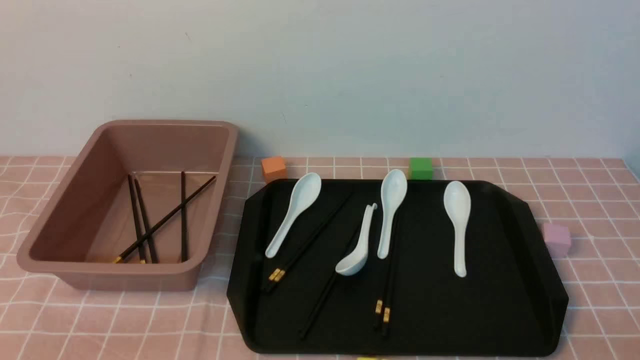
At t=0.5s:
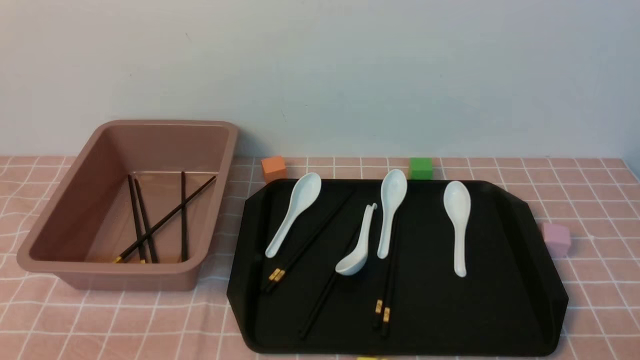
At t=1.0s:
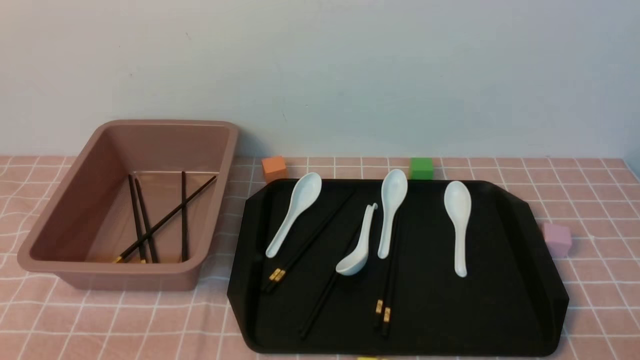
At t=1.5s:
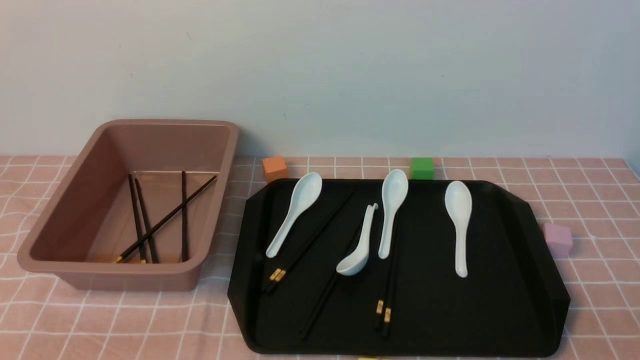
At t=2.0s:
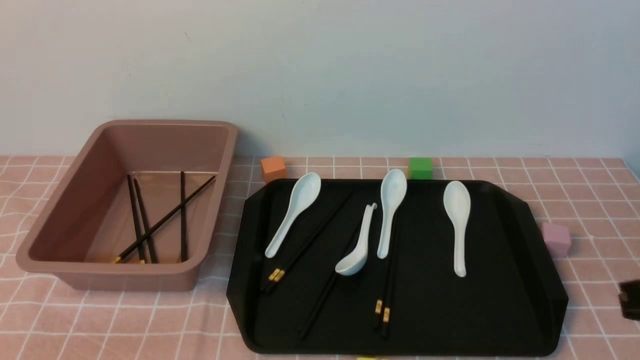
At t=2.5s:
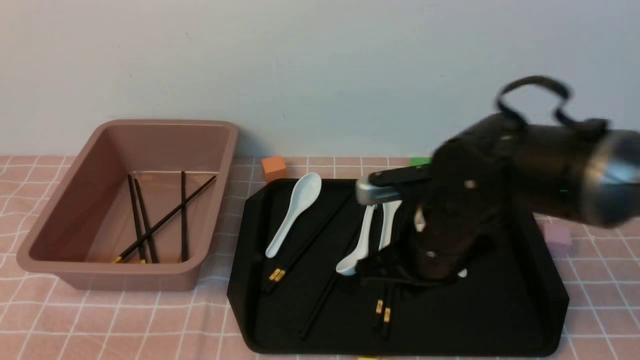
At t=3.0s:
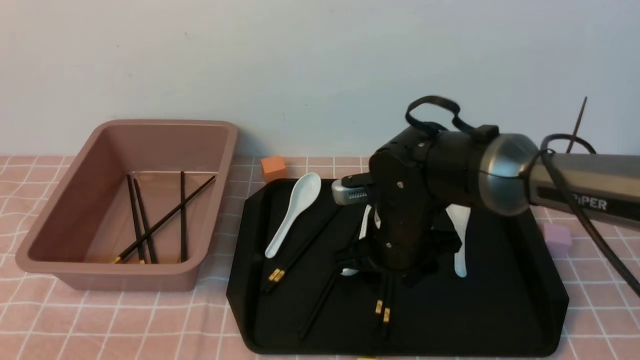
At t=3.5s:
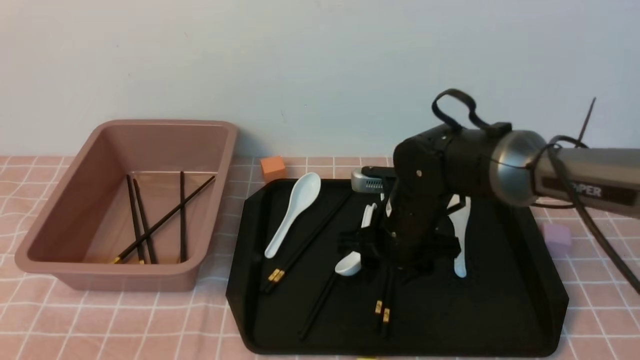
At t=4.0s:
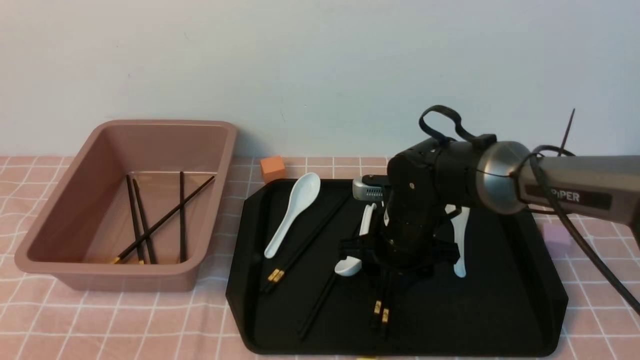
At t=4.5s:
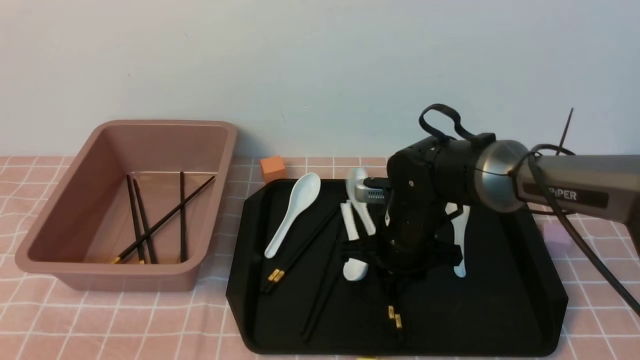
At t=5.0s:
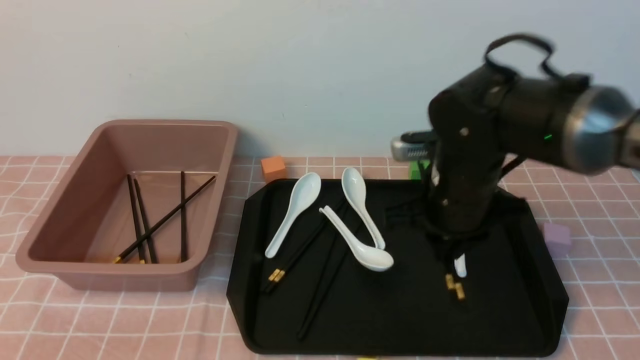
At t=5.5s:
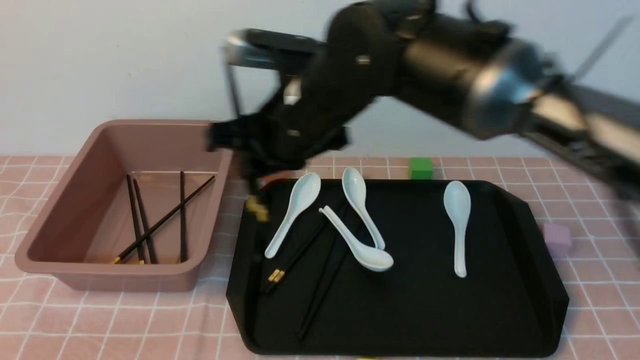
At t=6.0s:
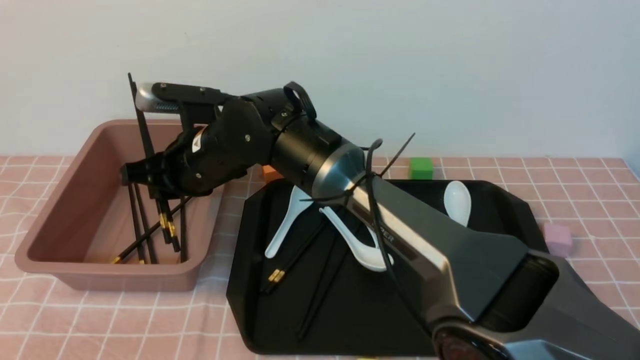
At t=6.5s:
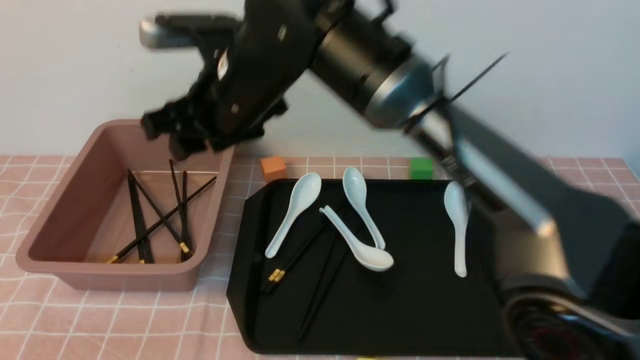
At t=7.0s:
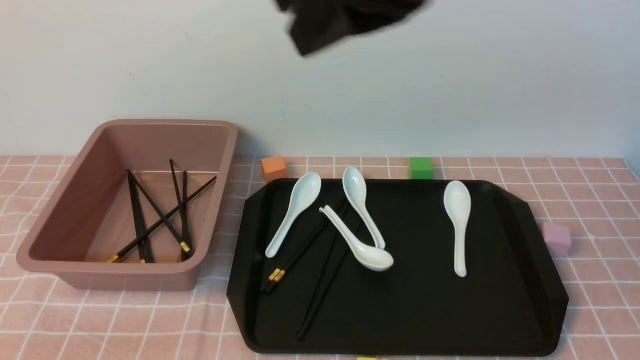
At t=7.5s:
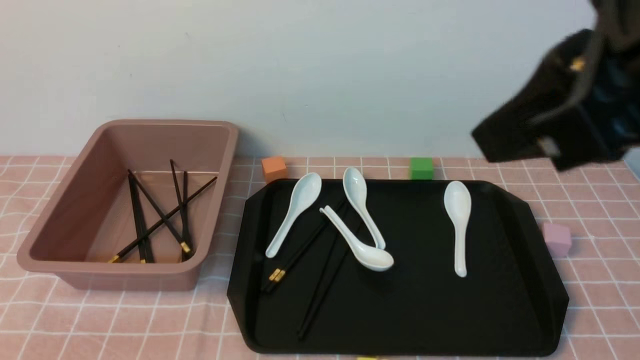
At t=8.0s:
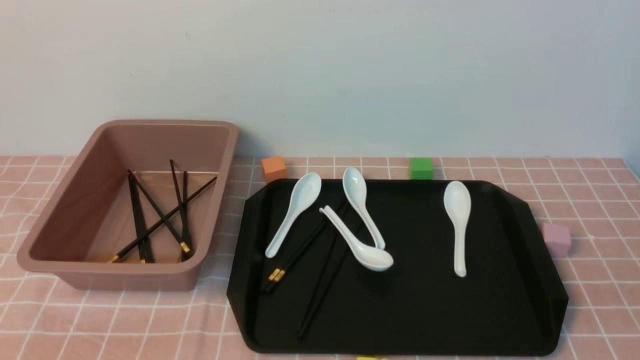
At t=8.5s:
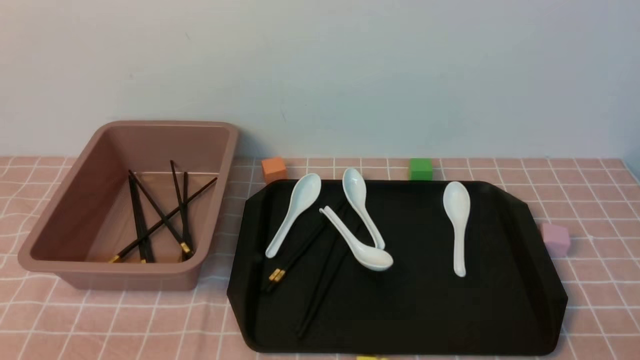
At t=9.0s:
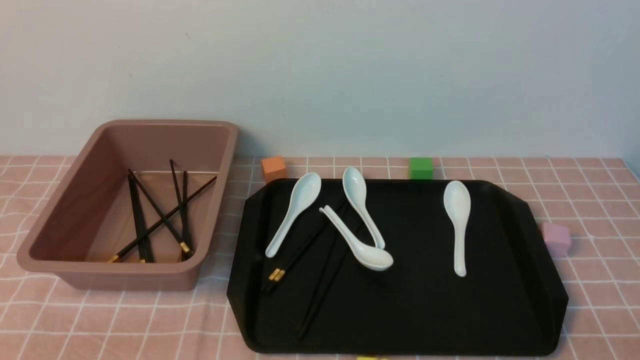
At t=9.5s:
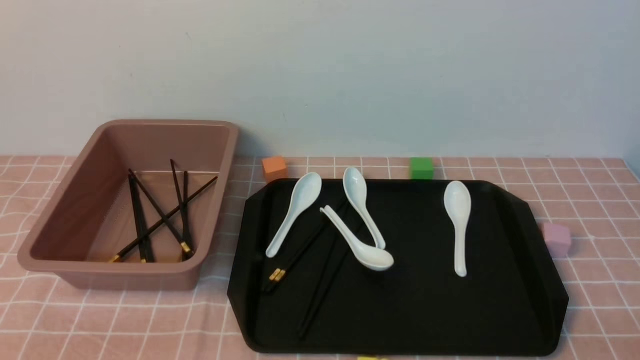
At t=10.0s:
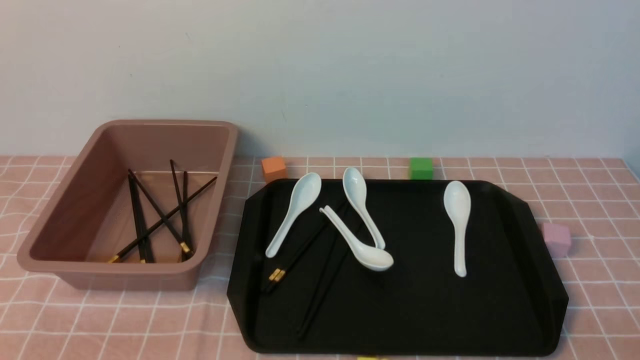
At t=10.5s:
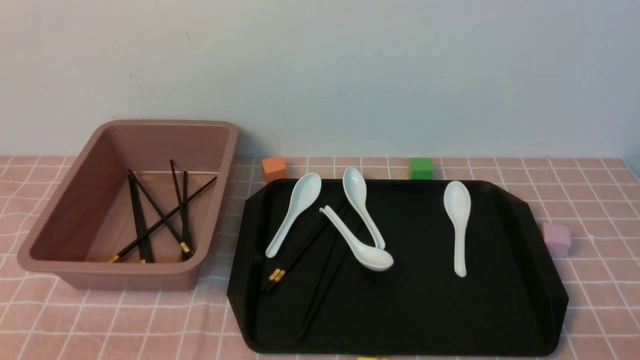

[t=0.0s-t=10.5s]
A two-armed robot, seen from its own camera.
Step, t=0.0s to t=5.0s: use the right arm to grab a pair of chopsticks.
Step, t=5.5s to t=6.5s: use the right arm to put the chopsticks into the lunch box.
t=2.0s to t=4.0s: The right gripper moves forward, to the left and downward, some 30 cm, and opens up.
t=4.0s to t=6.5s: The right gripper shifts some 25 cm upward and to the left, and closes and opens again.
t=6.5s to t=8.5s: The right gripper moves to the right, backward and downward, roughly 50 cm, and closes up.
t=8.5s to t=10.5s: Both grippers stay put.

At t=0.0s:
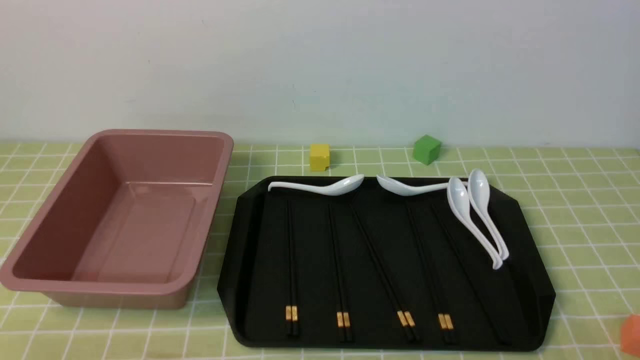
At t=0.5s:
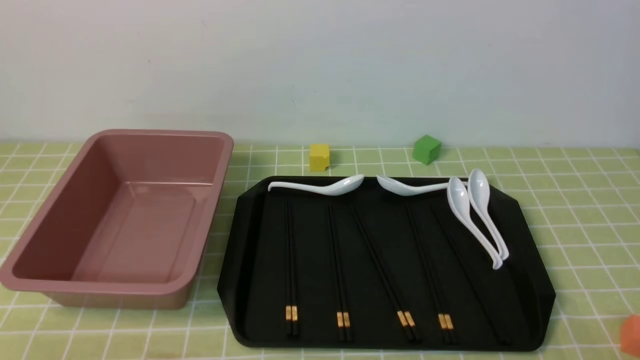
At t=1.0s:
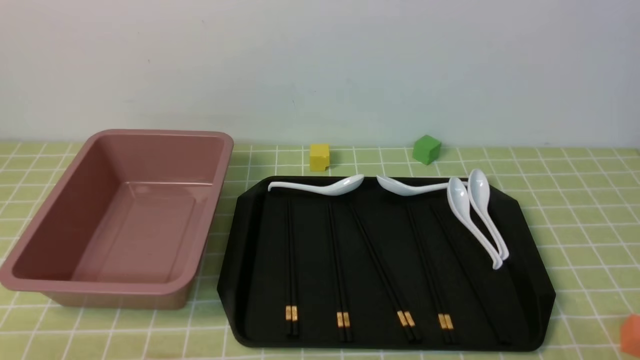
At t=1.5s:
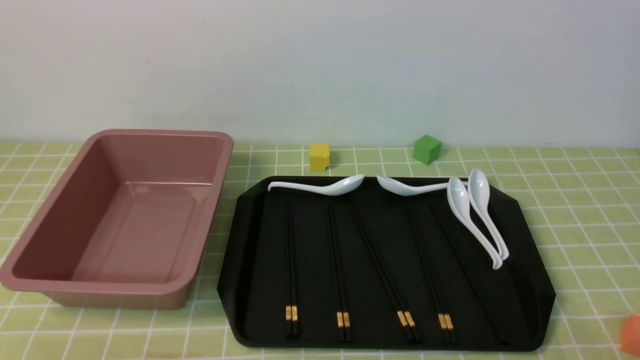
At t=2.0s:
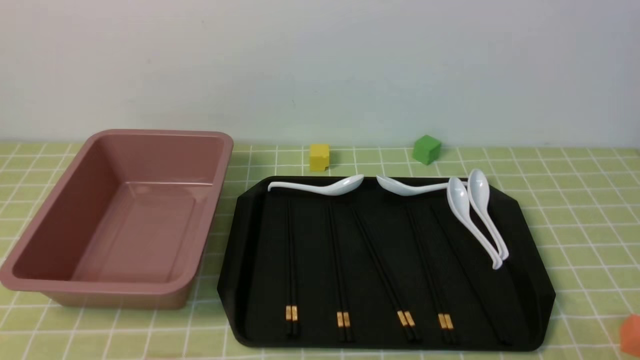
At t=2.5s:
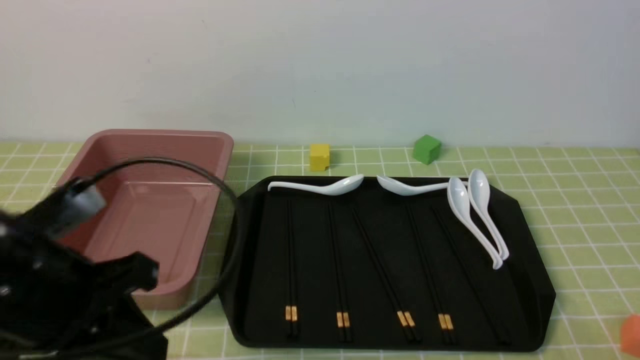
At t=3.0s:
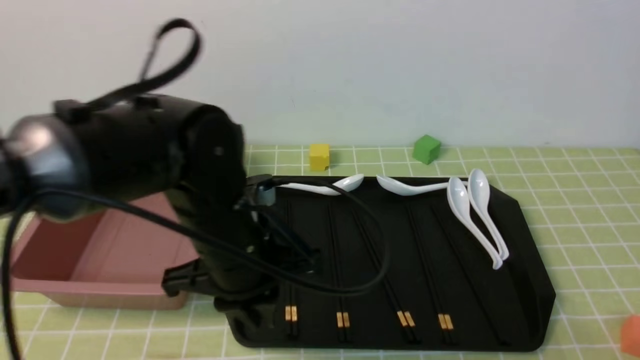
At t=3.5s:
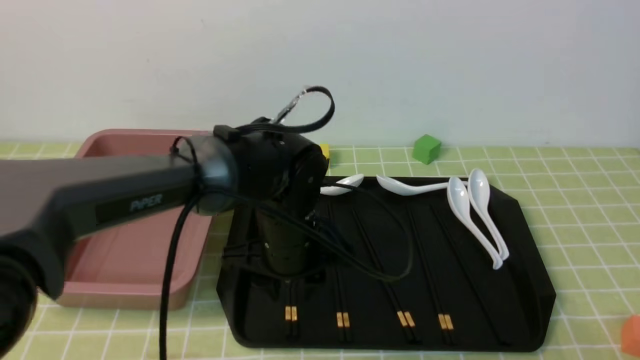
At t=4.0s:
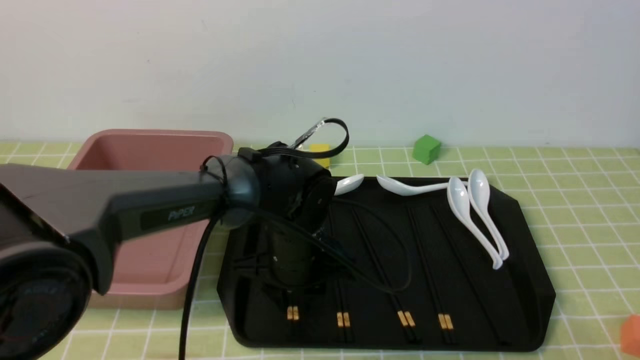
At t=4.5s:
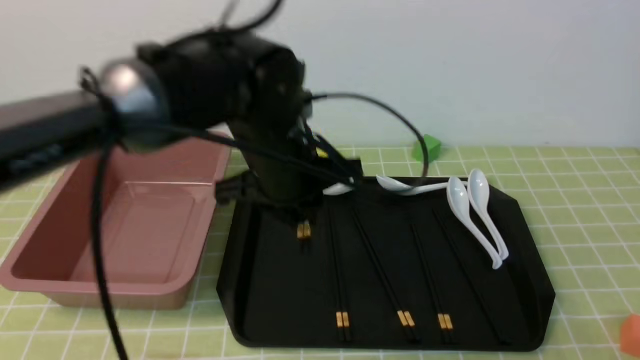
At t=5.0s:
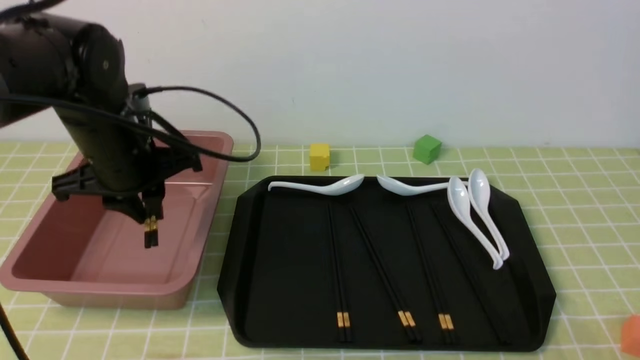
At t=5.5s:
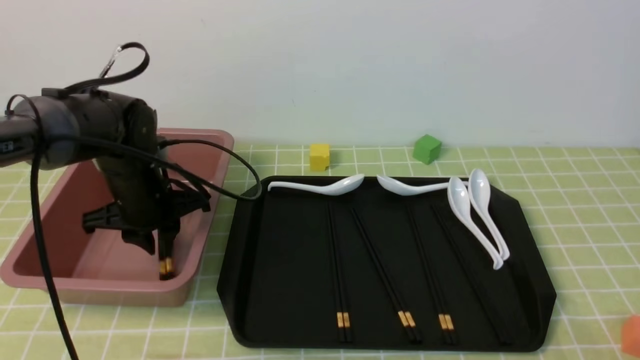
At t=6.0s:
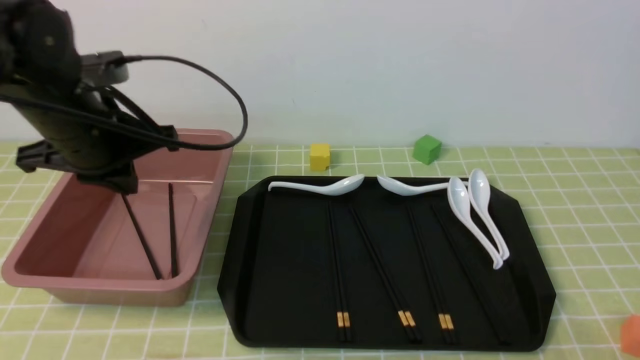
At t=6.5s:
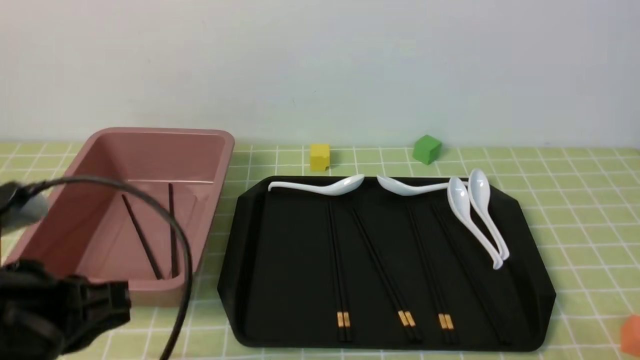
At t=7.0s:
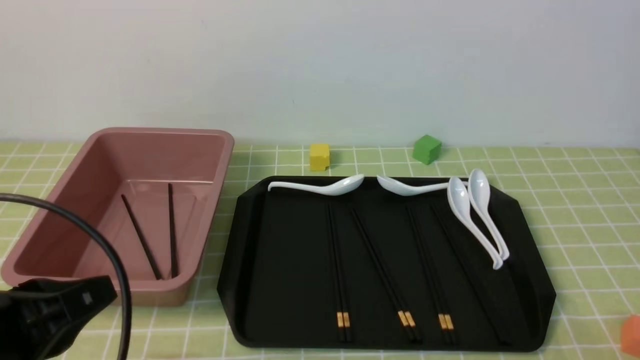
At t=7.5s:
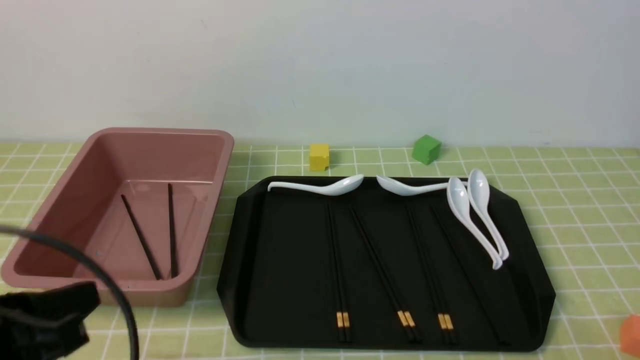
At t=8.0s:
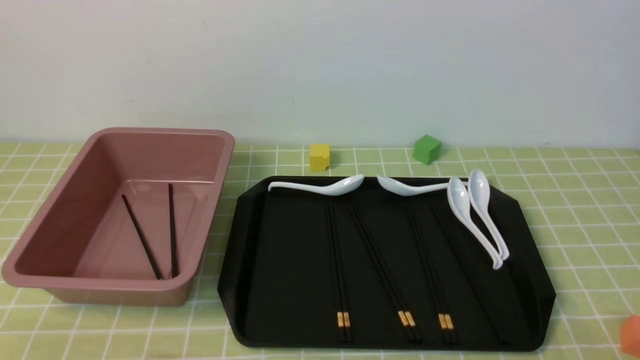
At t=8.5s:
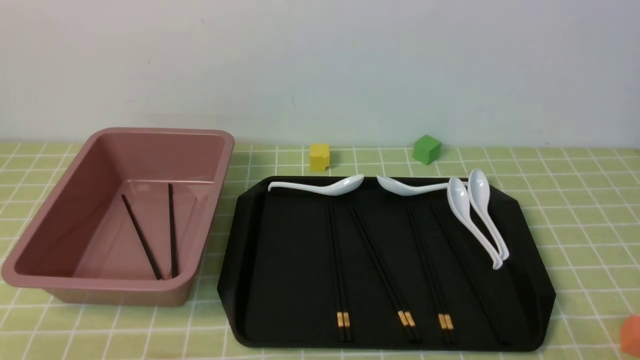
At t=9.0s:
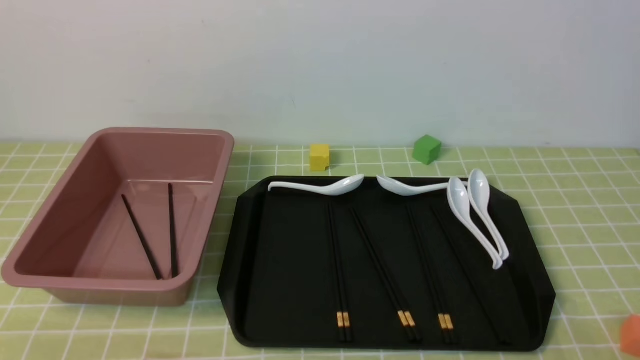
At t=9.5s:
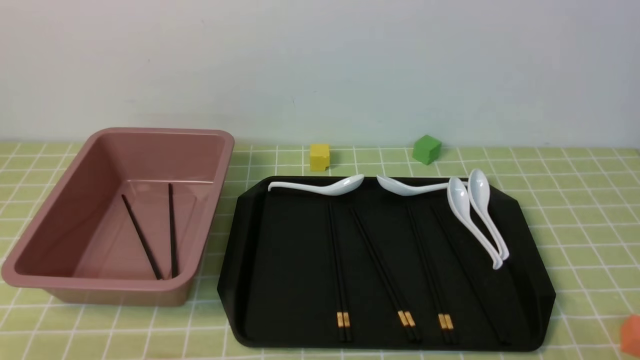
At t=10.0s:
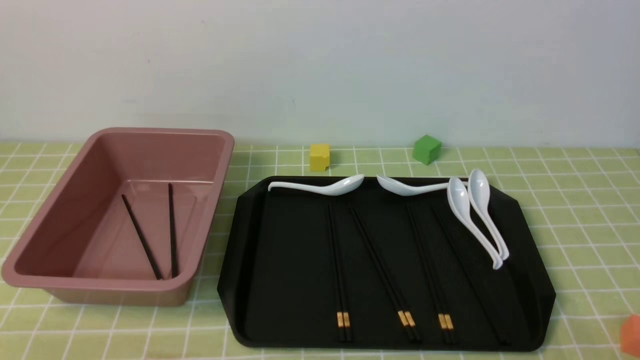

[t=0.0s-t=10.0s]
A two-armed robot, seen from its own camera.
Step, t=0.0s to t=4.5s: use the left arm to grab a pair of chopsticks.
Step, t=5.0s to t=5.5s: use the left arm to put the chopsticks into the lunch box.
t=2.0s to t=4.0s: The left gripper goes approximately 40 cm forward, to the right and downward, and opens its fingers.
t=4.0s to t=6.0s: The left gripper shifts roughly 25 cm to the left and upward, and closes.
t=6.0s to t=8.0s: The left gripper moves backward and downward, approximately 30 cm.
